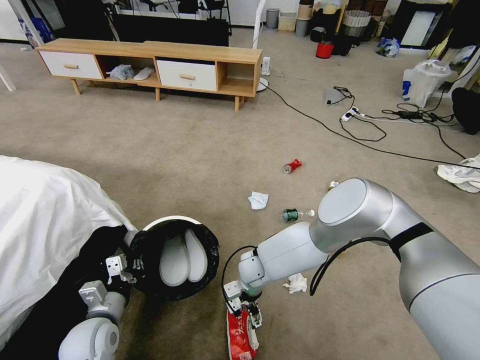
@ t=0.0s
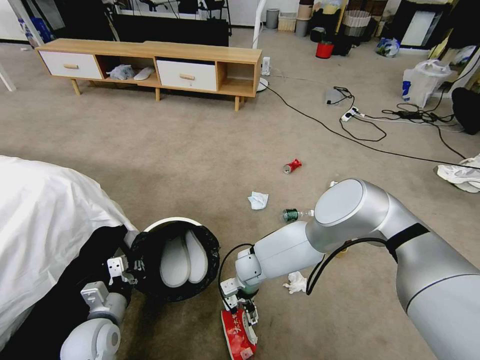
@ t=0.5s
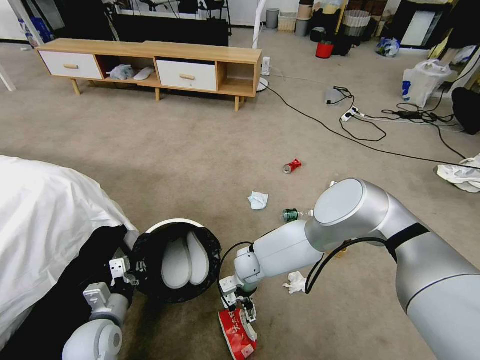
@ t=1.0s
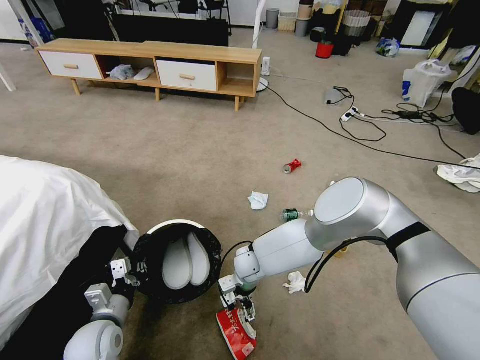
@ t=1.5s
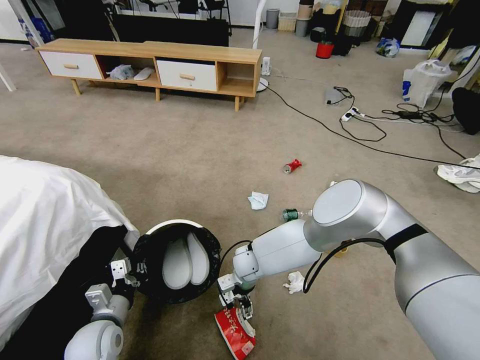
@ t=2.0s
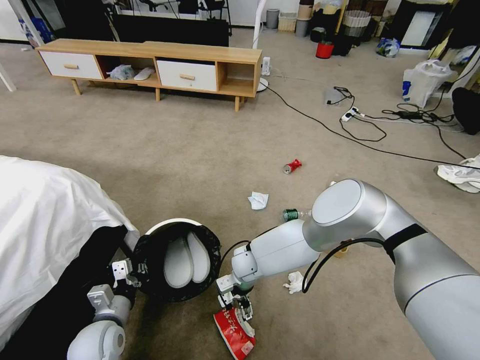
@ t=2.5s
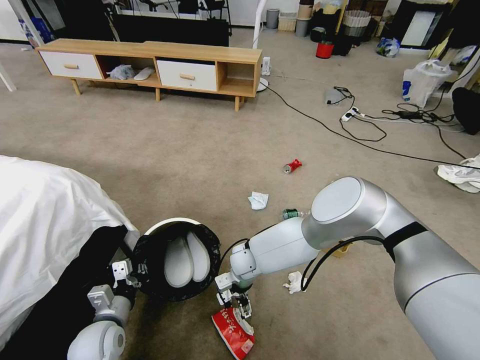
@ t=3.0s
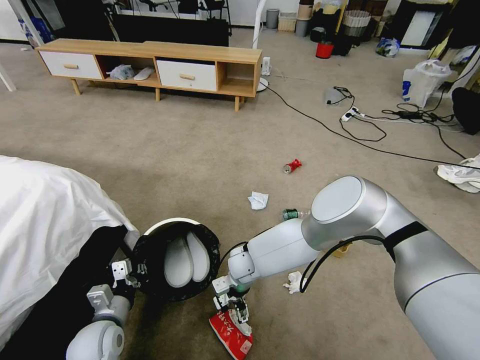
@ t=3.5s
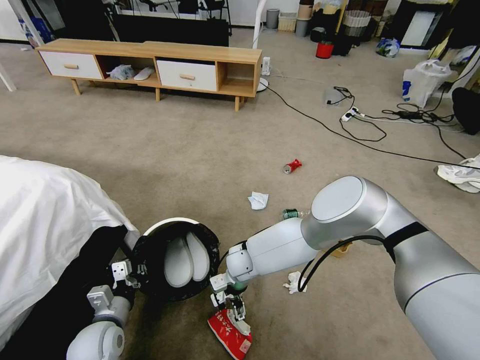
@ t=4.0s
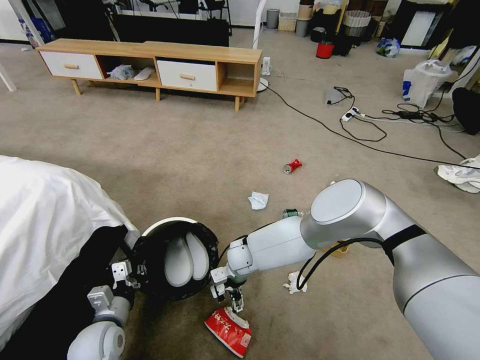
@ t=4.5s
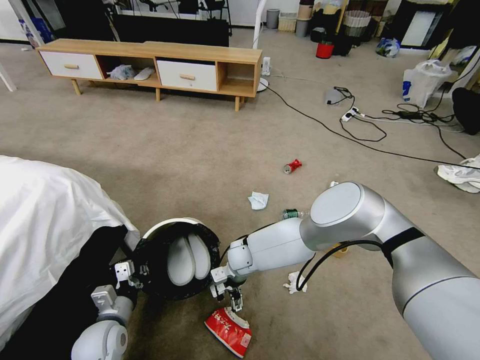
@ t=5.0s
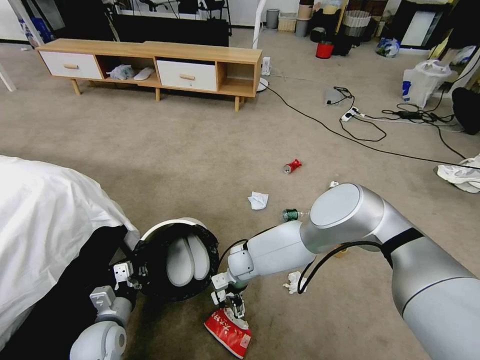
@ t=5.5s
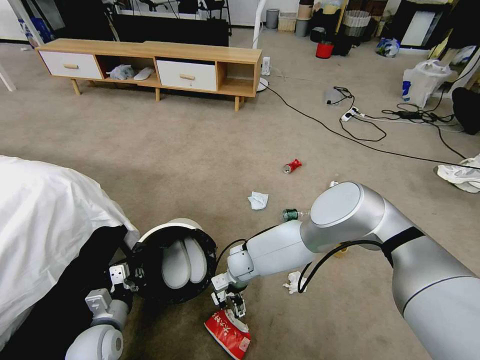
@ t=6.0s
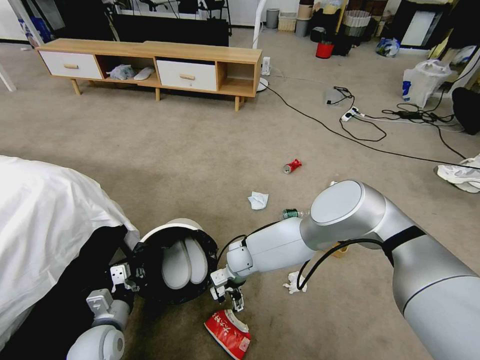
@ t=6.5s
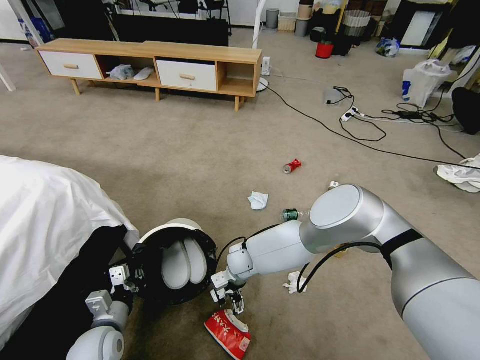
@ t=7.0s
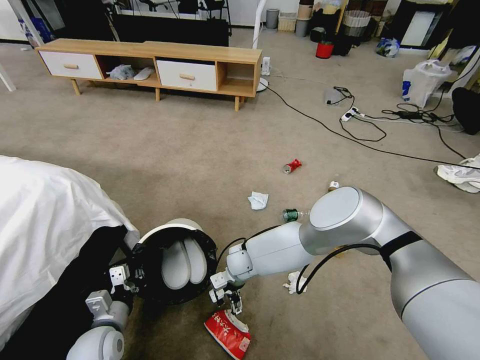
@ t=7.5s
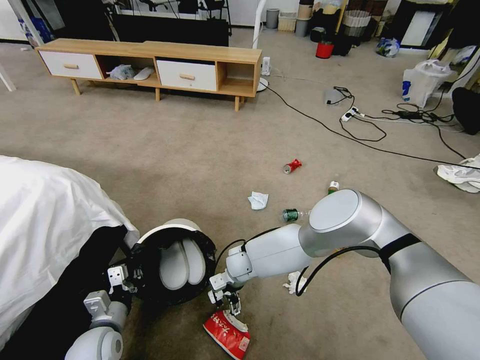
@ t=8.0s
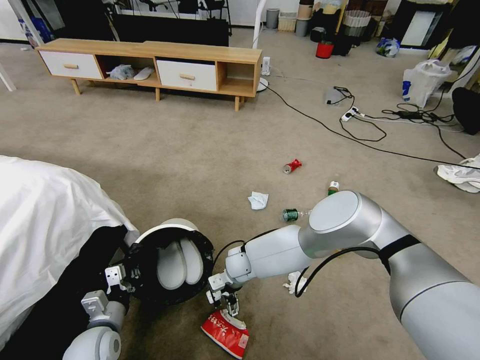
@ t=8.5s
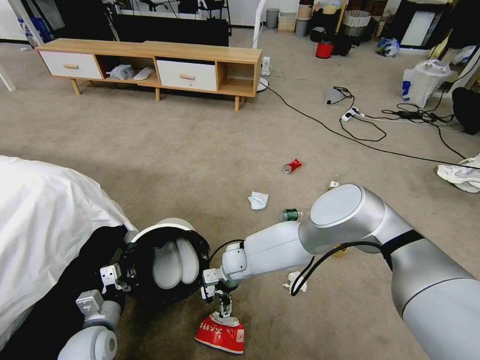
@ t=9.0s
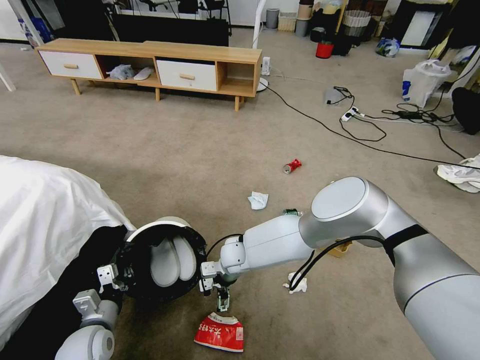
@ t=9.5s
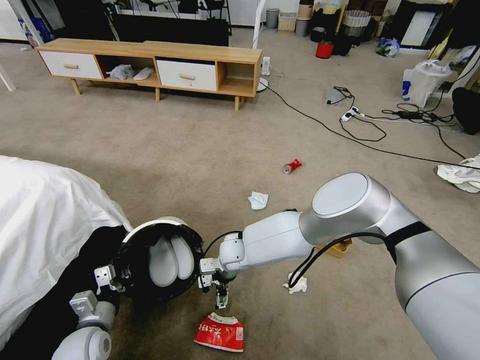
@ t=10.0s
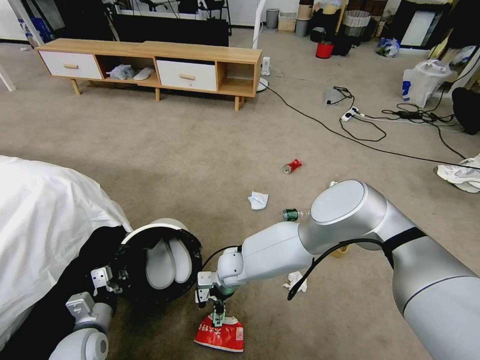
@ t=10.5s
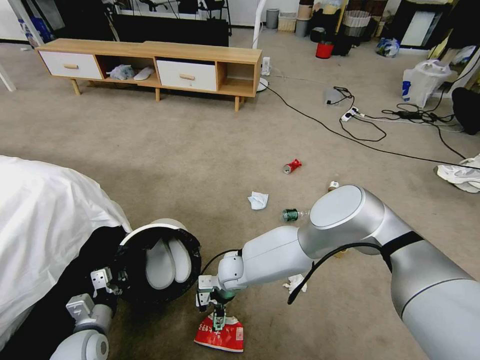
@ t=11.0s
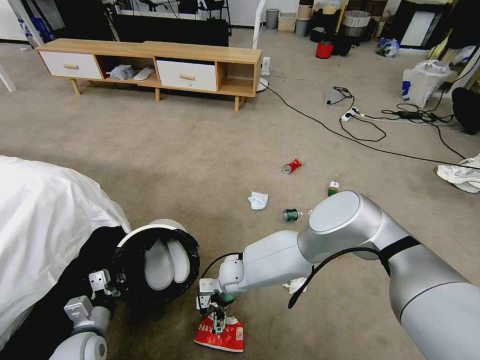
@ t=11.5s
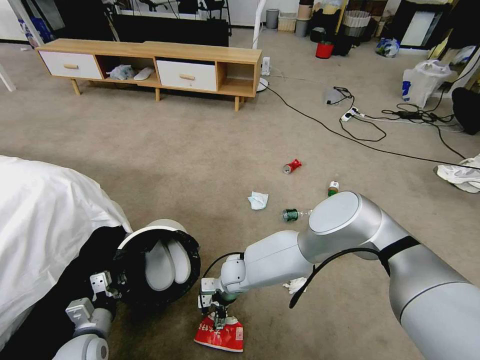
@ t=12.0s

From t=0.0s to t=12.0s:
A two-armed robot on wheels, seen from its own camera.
Task of the whole recording: Pick up the trash bin and place the garbage on the floor into it.
From t=0.0s to t=2.0s: The grippers stay close to where they were, moving slightly.
From t=2.0s to t=4.0s: The left gripper closes.
From t=4.0s to t=6.0s: The left gripper closes up.
From t=6.0s to t=8.0s: Both grippers stay put.
From t=8.0s to t=10.0s: The grippers move only a little.
From t=10.0s to t=12.0s: The right gripper changes place by roughly 5 cm.

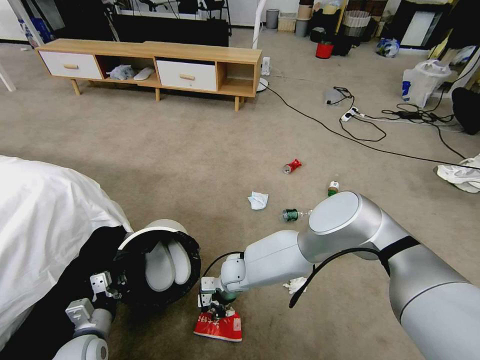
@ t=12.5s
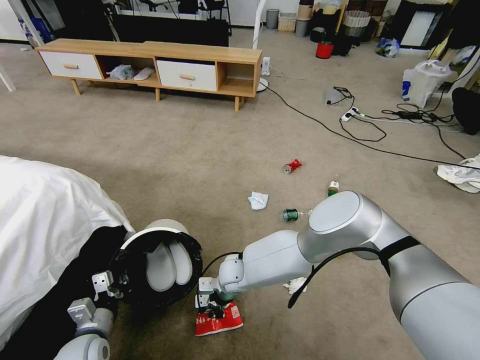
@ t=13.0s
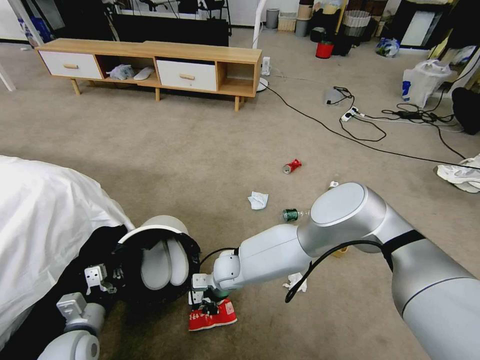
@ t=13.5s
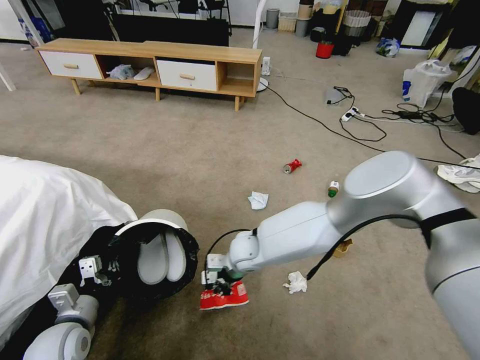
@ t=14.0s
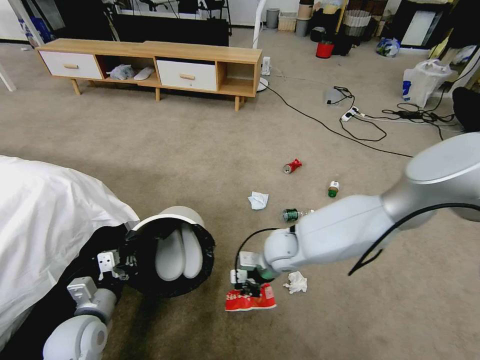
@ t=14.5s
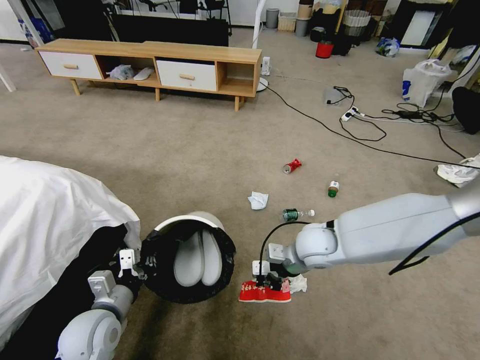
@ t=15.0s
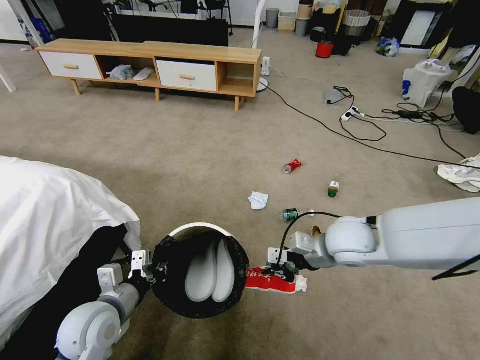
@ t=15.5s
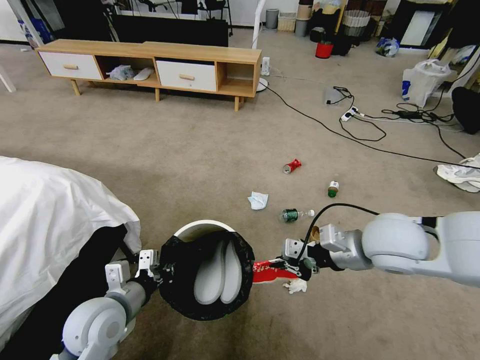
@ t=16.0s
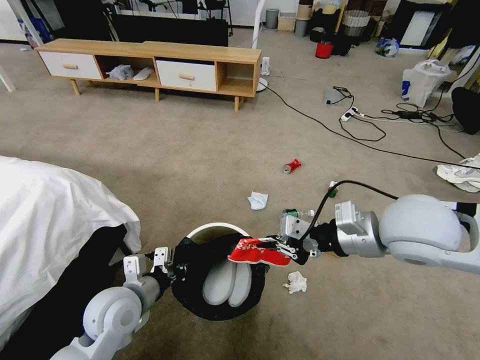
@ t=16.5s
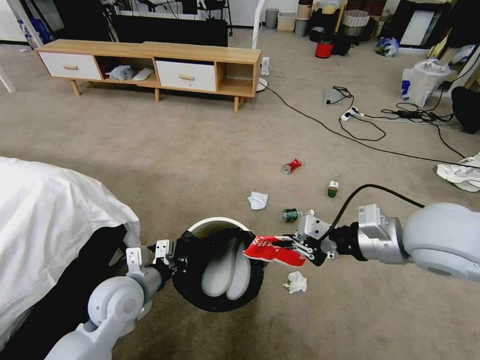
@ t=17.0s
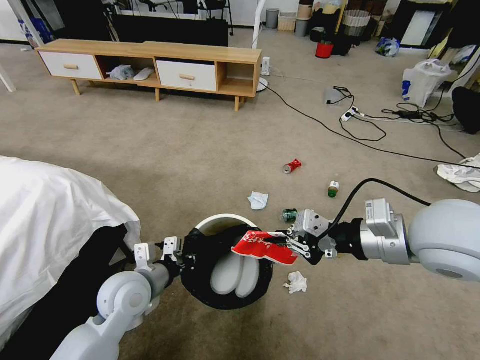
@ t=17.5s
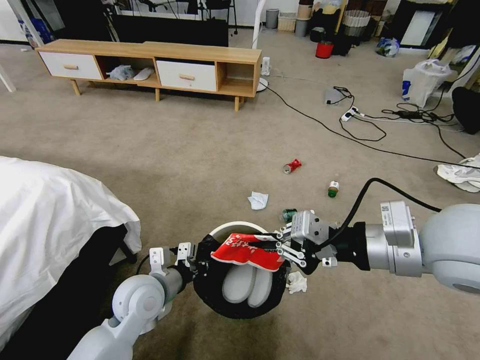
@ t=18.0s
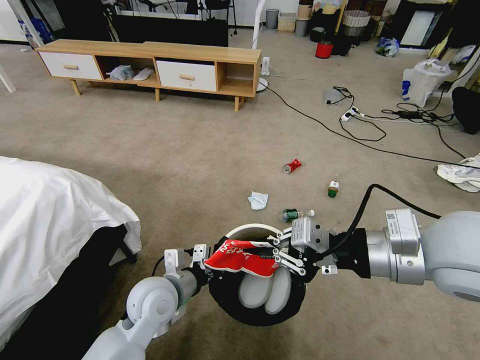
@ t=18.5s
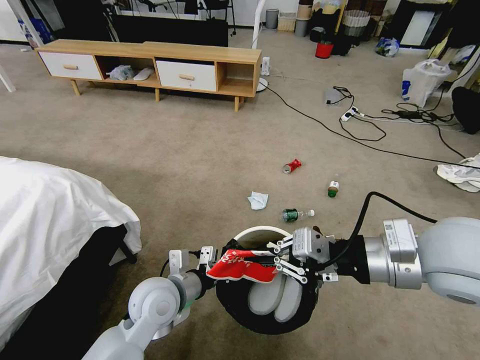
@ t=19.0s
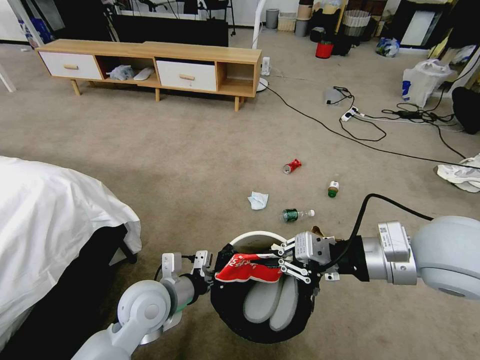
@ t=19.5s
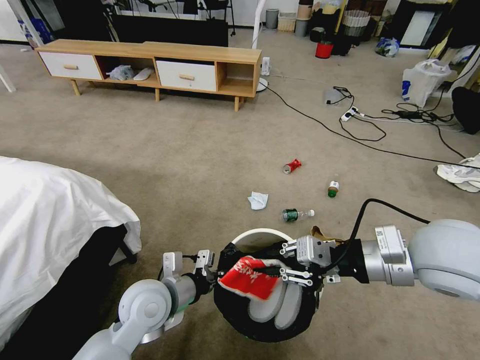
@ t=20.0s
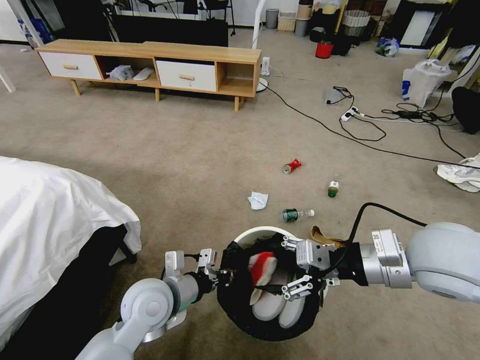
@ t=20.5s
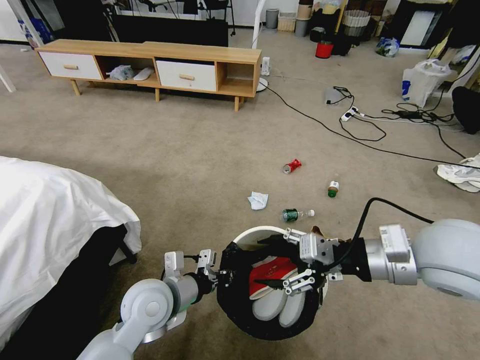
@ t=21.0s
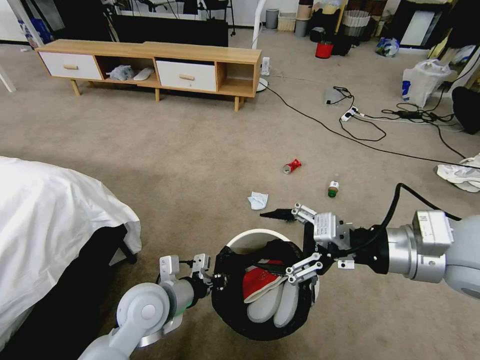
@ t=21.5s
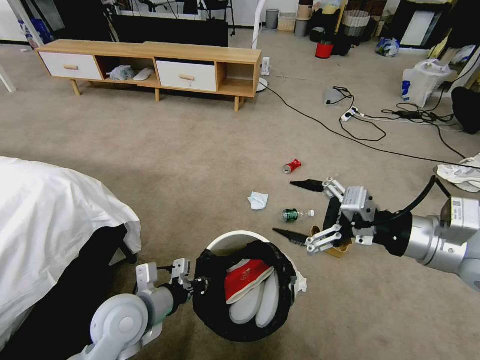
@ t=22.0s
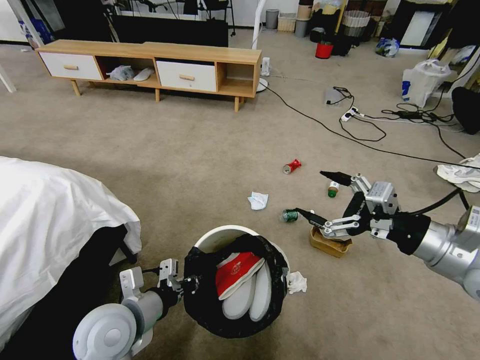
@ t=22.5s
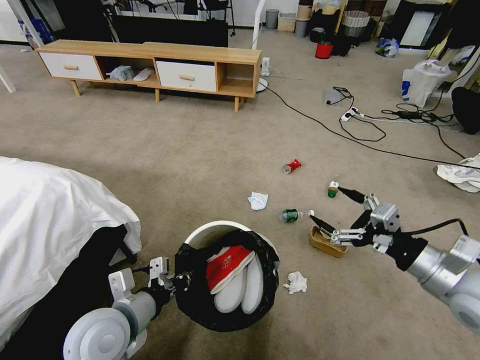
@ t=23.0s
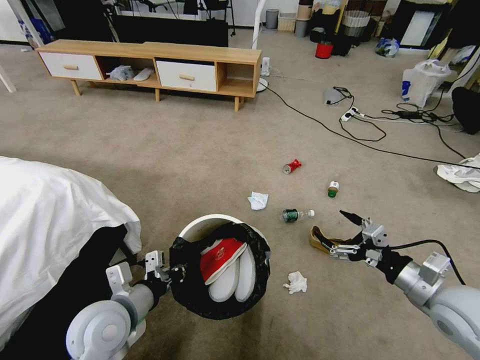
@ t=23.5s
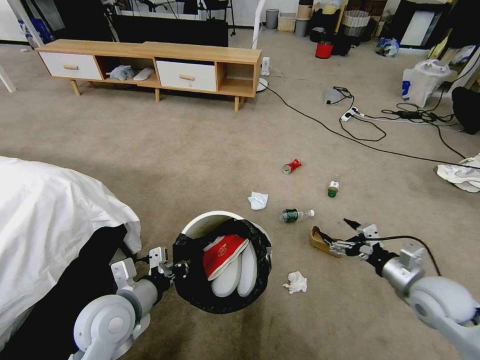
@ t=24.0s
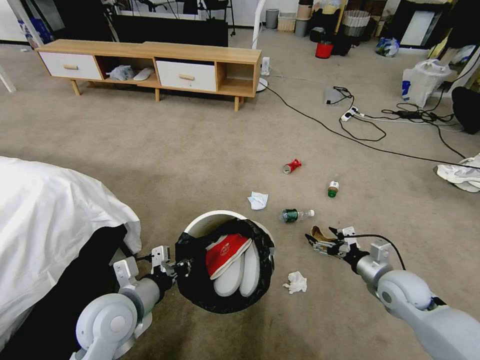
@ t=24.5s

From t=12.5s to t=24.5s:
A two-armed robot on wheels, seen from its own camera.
Task of the whole recording: Pick up the trash bin and place the garbage on the floor into it.
From t=12.5s to t=14.5s: The left gripper goes approximately 5 cm upward; the right gripper heads upward and to the right, covering approximately 15 cm.
From t=14.5s to t=16.5s: The left gripper moves to the right and upward, some 10 cm; the right gripper heads upward, to the right and backward, covering approximately 25 cm.
From t=16.5s to t=18.5s: The left gripper is displaced to the right by some 5 cm. Meanwhile the right gripper moves backward, roughly 5 cm.
From t=18.5s to t=20.5s: The right gripper is displaced downward by some 5 cm, and opens its fingers.
From t=20.5s to t=22.5s: The left gripper moves to the left and backward, approximately 10 cm. Meanwhile the right gripper is displaced to the right by roughly 5 cm.
From t=22.5s to t=24.5s: The right gripper shifts some 25 cm downward.

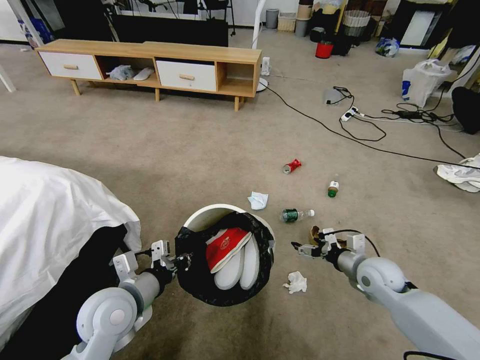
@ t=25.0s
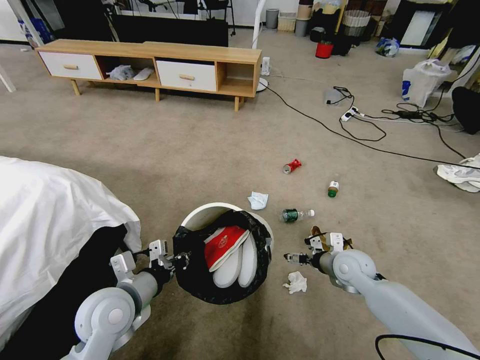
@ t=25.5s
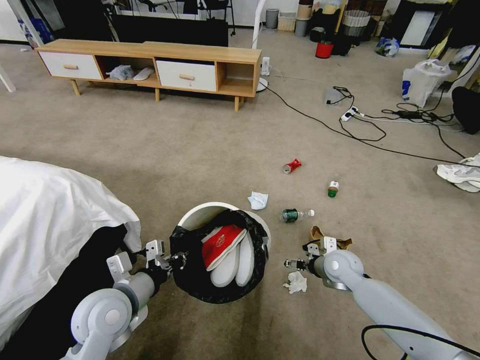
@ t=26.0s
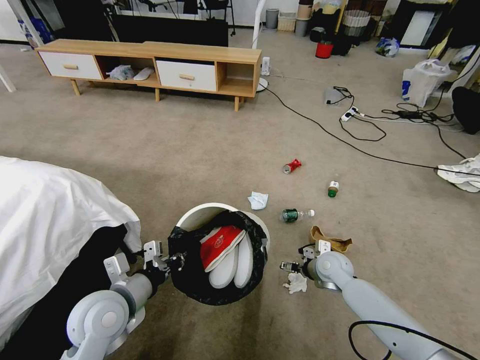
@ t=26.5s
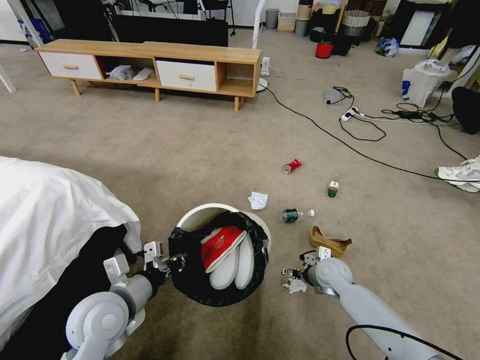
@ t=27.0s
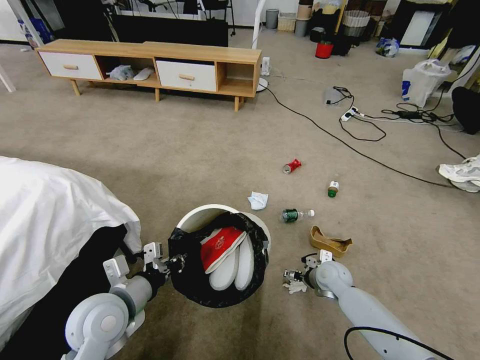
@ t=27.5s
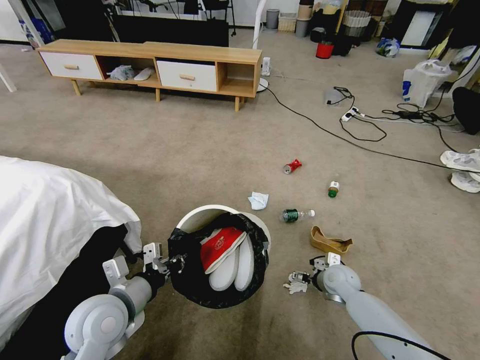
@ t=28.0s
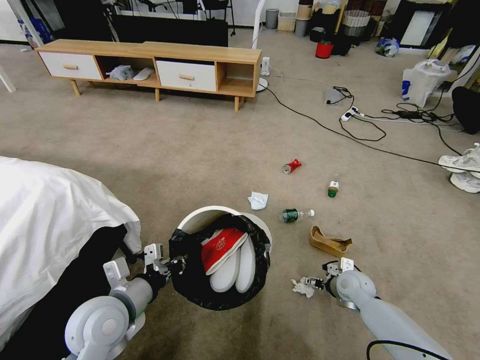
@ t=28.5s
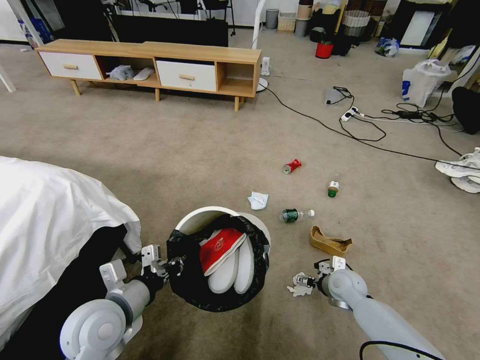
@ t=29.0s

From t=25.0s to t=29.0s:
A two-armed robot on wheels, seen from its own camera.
Task of the whole recording: Pick up the trash bin and place the garbage on the floor into it.
From t=25.0s to t=27.0s: The right gripper shifts about 10 cm downward and to the left.
